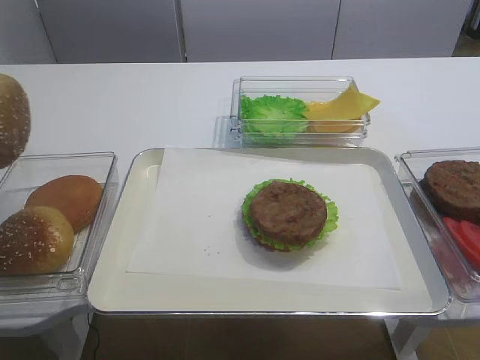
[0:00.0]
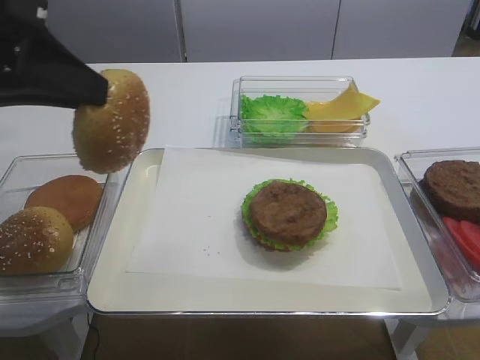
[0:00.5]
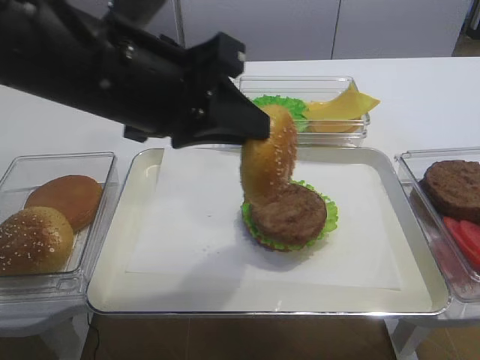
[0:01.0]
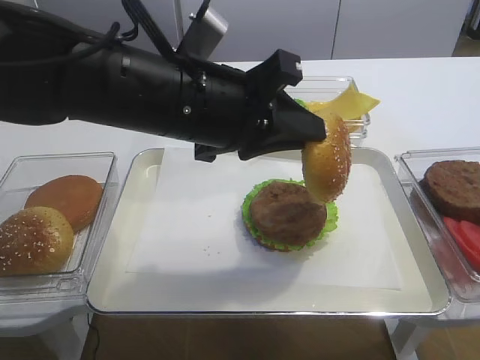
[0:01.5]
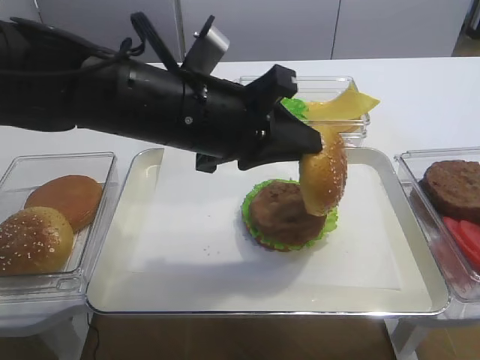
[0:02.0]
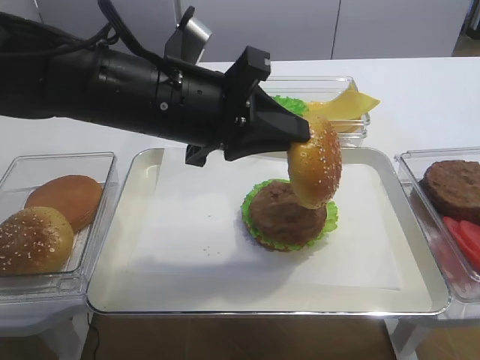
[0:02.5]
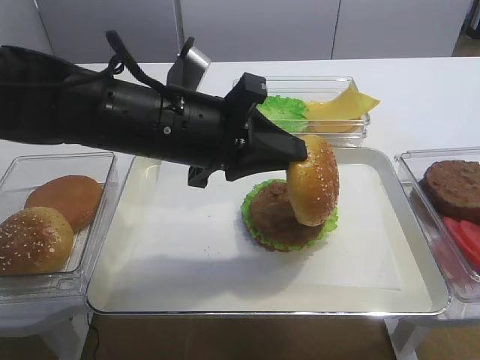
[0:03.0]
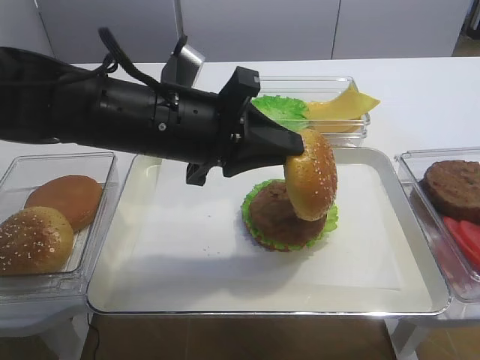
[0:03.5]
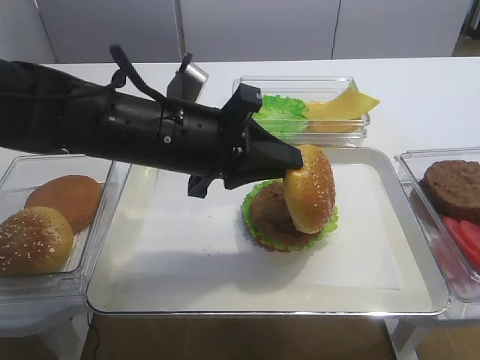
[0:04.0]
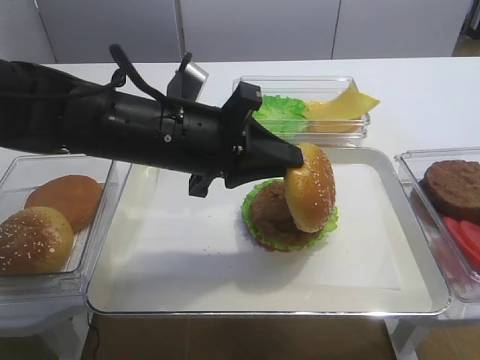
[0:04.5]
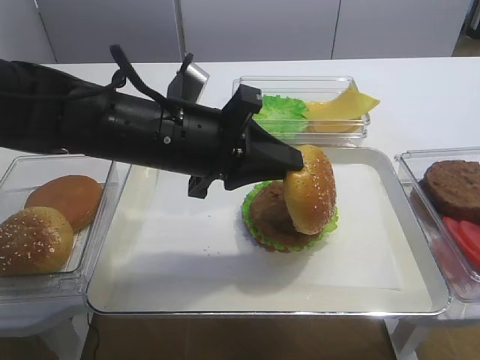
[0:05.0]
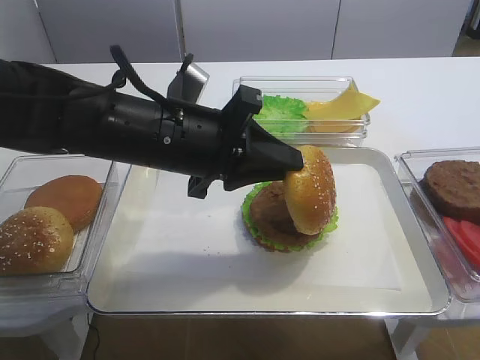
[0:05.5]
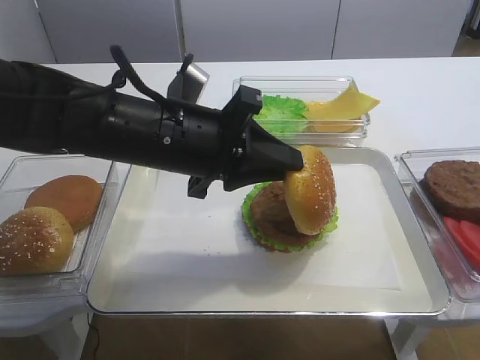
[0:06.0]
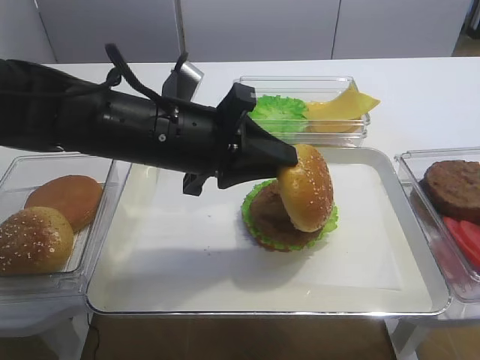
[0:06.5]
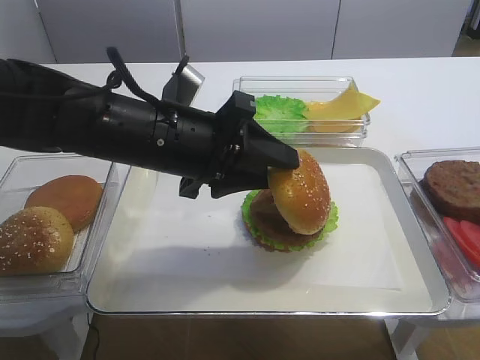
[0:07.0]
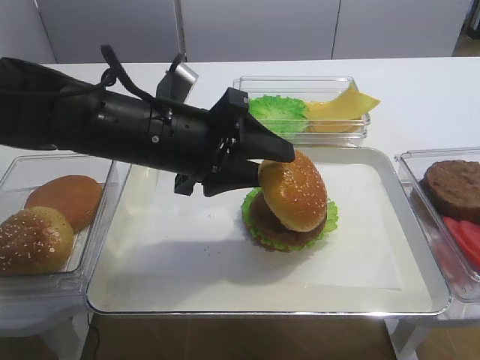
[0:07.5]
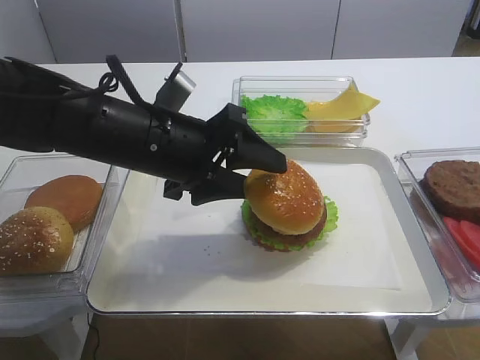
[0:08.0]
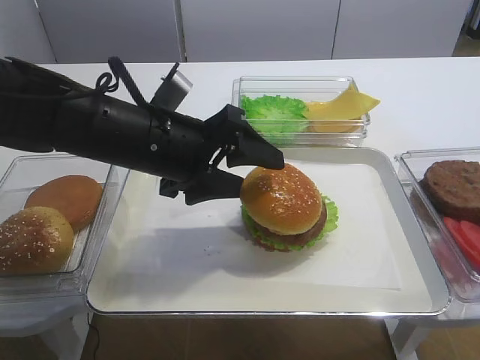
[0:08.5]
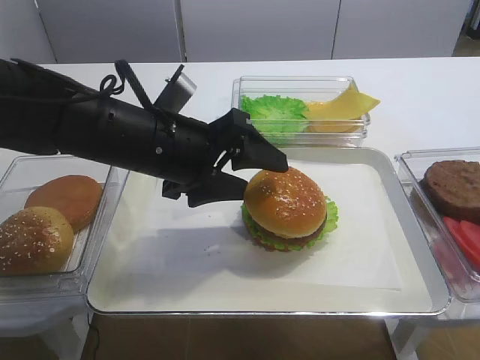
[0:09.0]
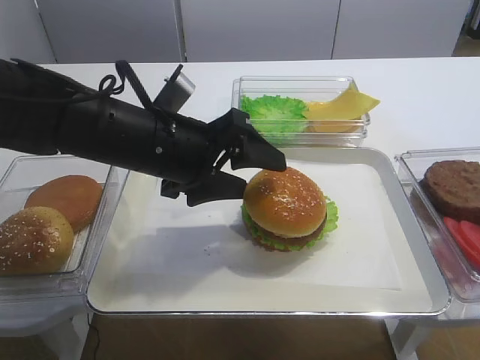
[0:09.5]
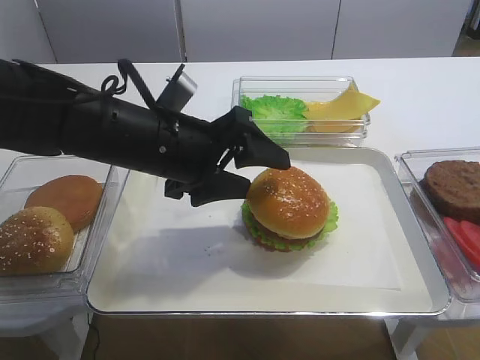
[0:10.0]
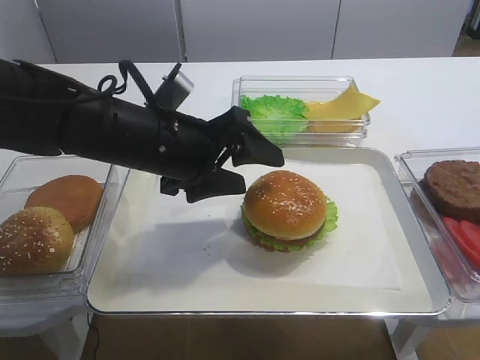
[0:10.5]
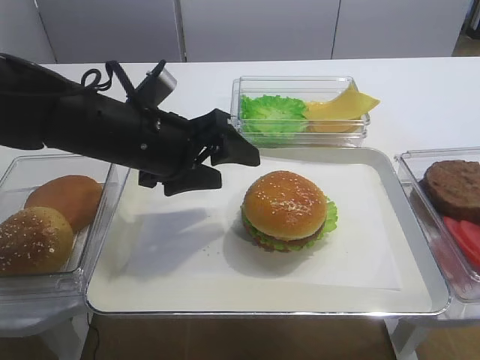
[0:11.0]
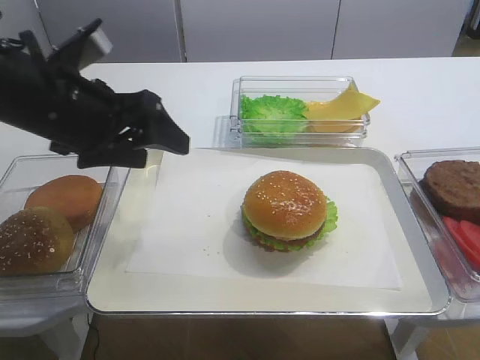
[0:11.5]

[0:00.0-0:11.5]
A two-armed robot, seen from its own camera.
Step, 0:00.0 to 0:11.0: Place the hamburger lid on the cutlet slice with the left gripper.
0:00.0 to 0:02.0: The left gripper goes about 25 cm to the right.
0:02.0 to 0:04.0: The grippers stay close to where they were, moving slightly.
0:04.0 to 0:06.0: The two grippers keep their place.
0:06.0 to 0:07.5: The left gripper opens its fingers.
0:07.5 to 0:09.5: There are only small adjustments of the grippers.
0:09.5 to 0:11.5: The left gripper shifts approximately 10 cm to the left.

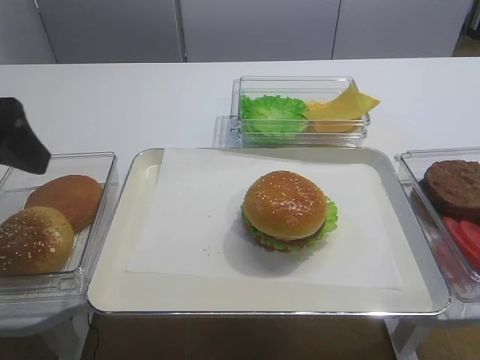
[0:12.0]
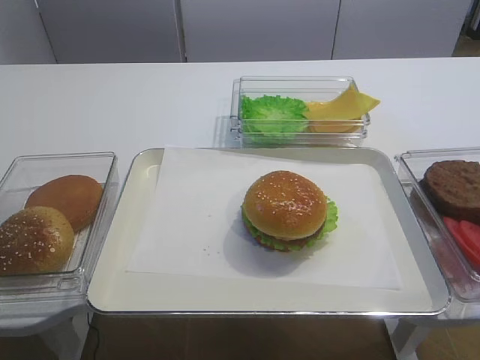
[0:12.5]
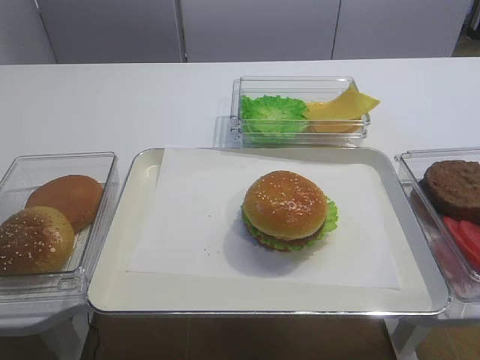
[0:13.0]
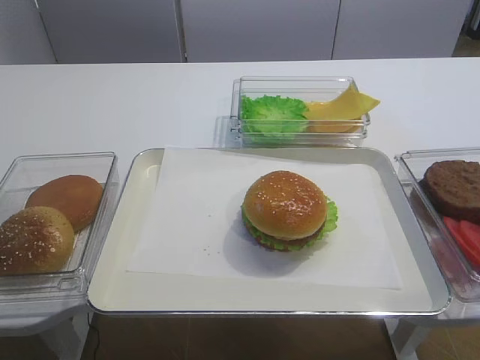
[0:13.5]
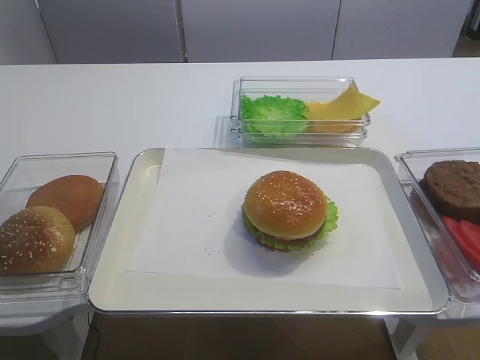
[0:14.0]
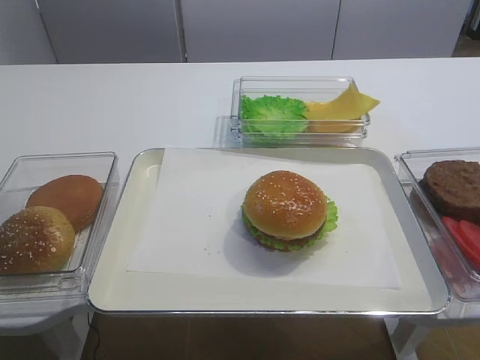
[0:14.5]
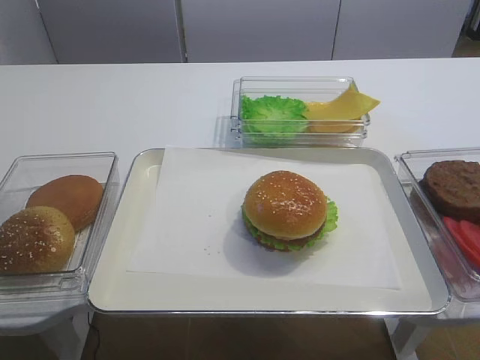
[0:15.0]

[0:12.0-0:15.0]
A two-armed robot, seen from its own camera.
0:12.0 to 0:13.5: The left gripper heads backward, covering about 25 cm.

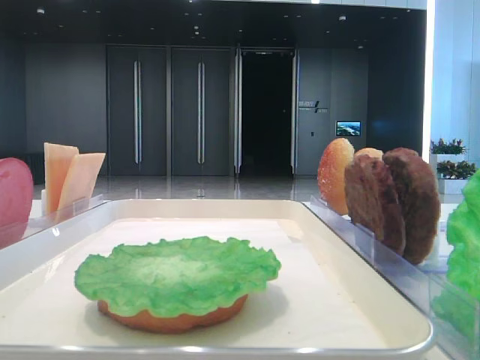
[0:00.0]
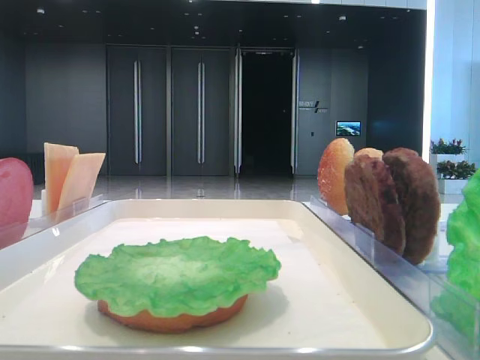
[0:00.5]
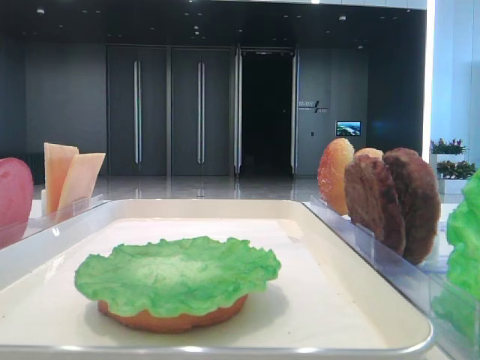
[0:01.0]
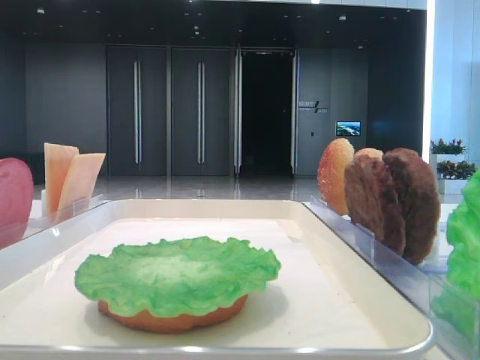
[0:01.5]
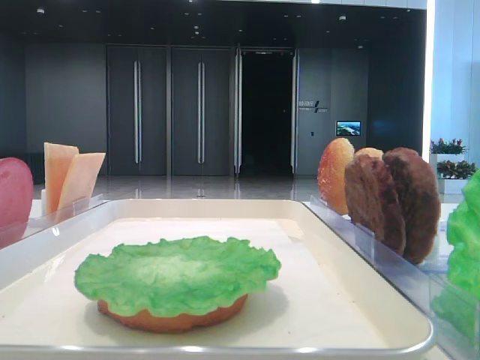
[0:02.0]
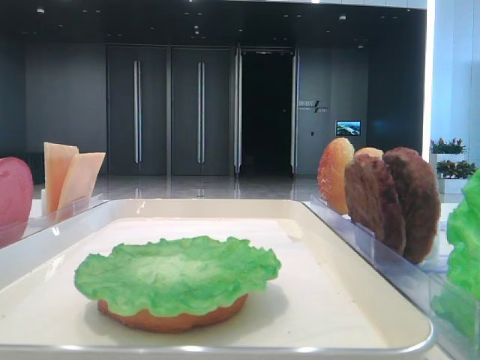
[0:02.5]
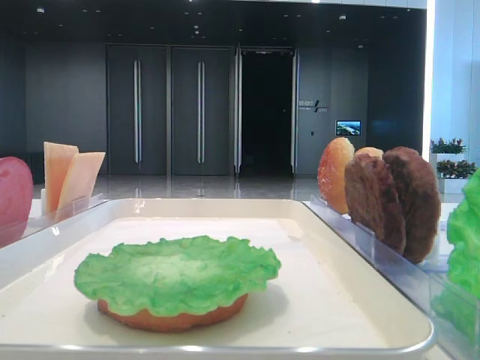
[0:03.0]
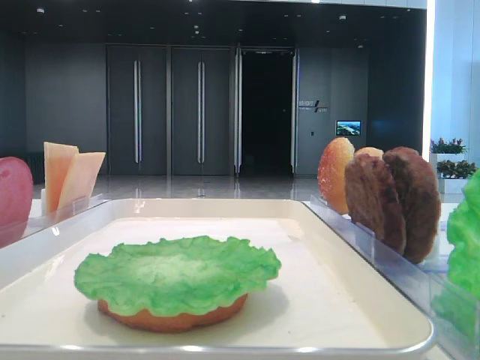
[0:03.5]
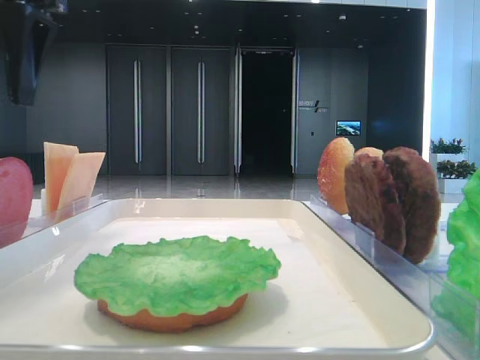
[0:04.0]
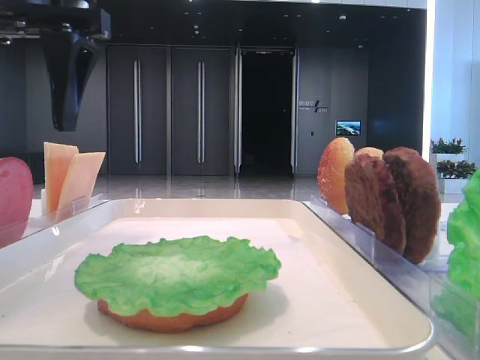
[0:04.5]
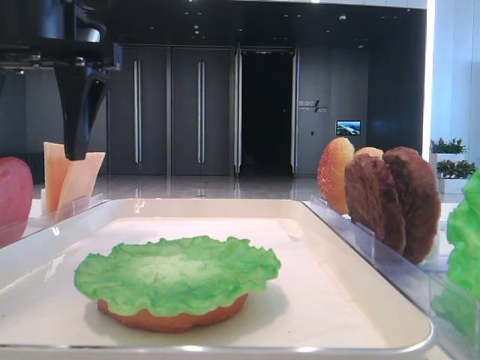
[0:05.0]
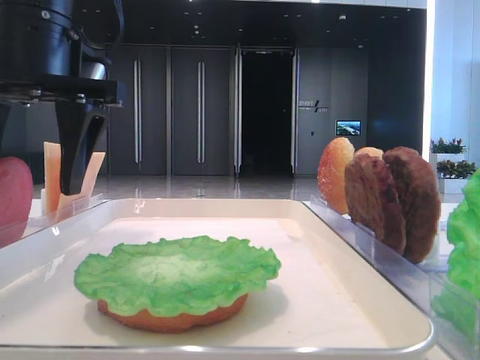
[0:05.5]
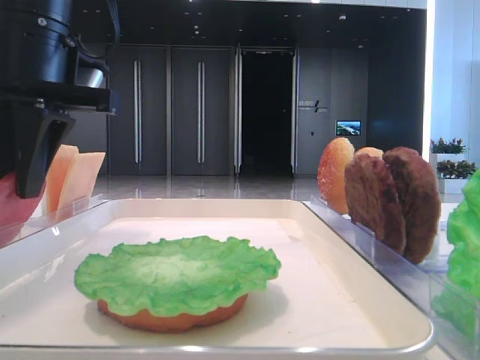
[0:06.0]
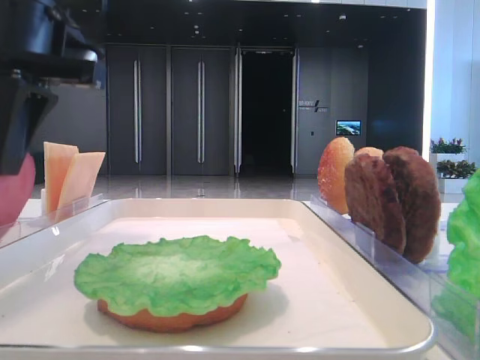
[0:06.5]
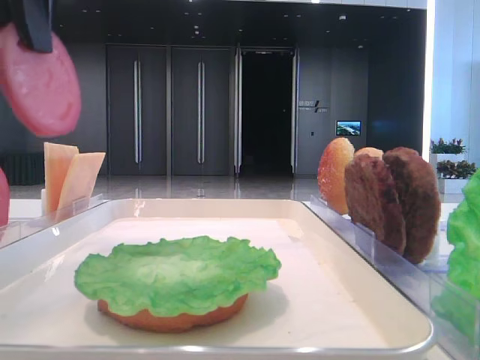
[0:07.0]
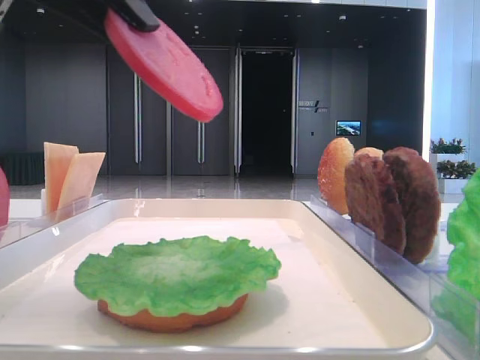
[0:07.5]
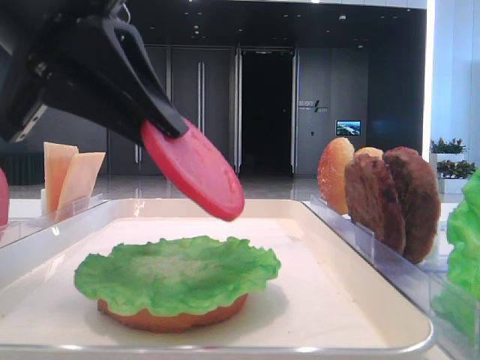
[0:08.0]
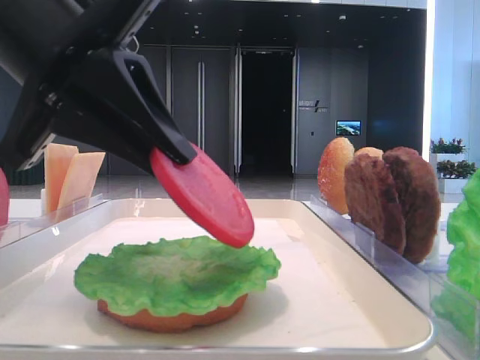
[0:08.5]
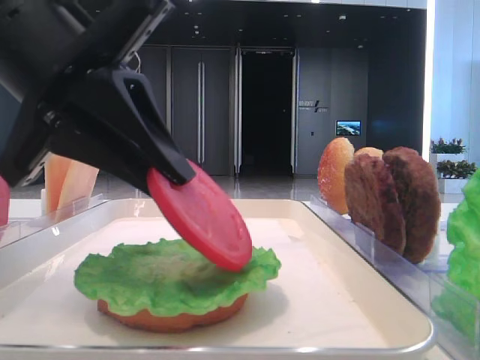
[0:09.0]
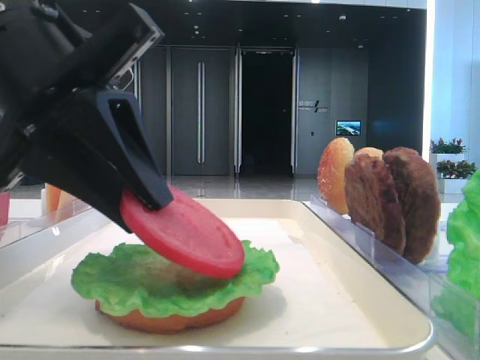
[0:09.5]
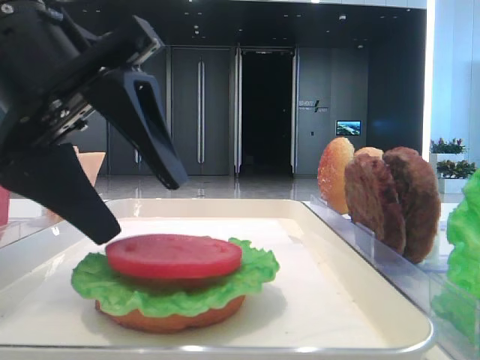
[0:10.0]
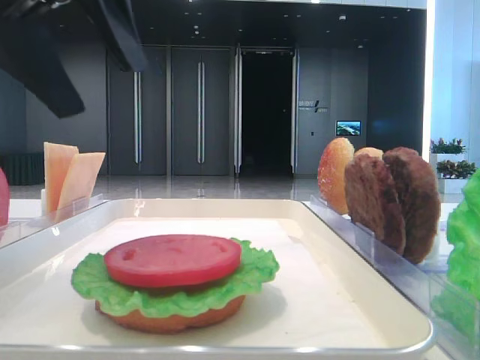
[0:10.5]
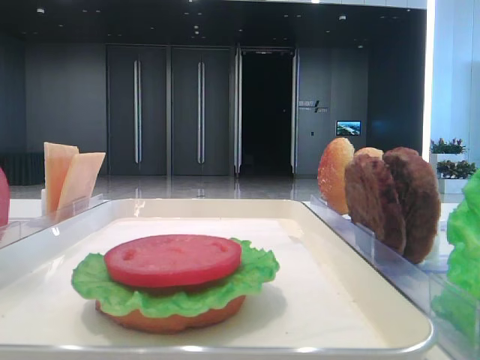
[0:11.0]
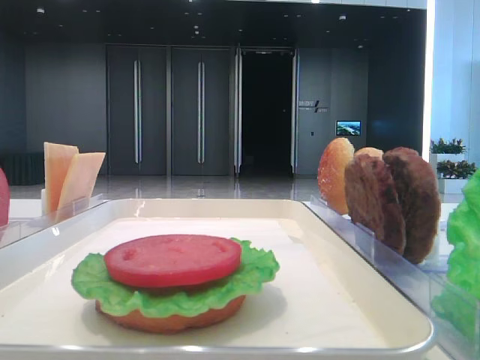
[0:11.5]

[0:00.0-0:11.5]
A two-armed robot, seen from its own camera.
Step, 0:00.0 to 0:06.0: Pick up the tomato slice with the left hand.
Step, 0:06.5 to 0:09.5: Place the tomato slice on the lettuce leaf with the left hand.
0:02.0 to 0:04.0: The left gripper shifts about 20 cm forward and to the right.
0:04.0 to 0:06.0: The left gripper goes roughly 5 cm downward, and closes its fingers.
0:06.0 to 0:07.5: The left gripper heads backward, covering approximately 10 cm.
0:07.5 to 0:09.5: The left gripper is displaced downward by some 10 cm.
0:09.5 to 0:11.5: The left gripper shifts approximately 20 cm to the left and upward, and opens its fingers.
